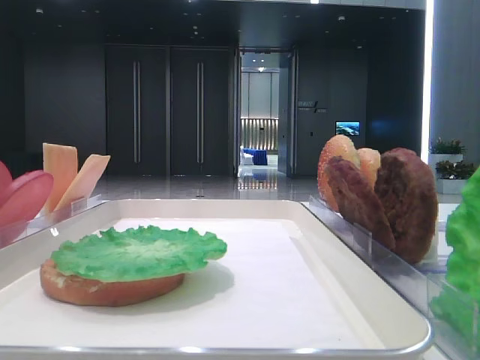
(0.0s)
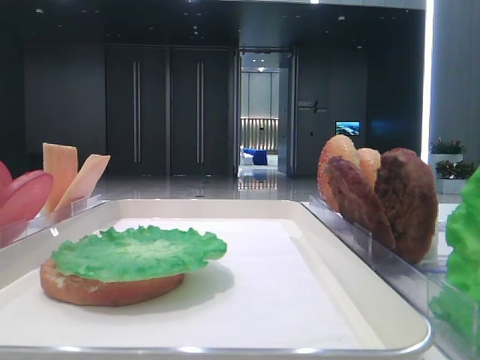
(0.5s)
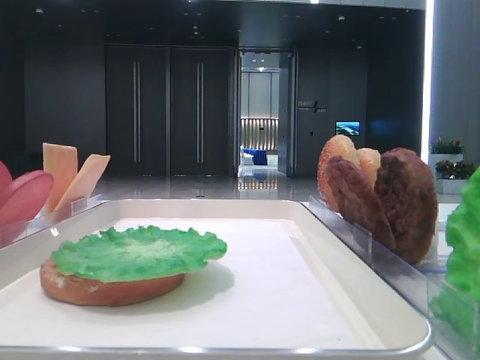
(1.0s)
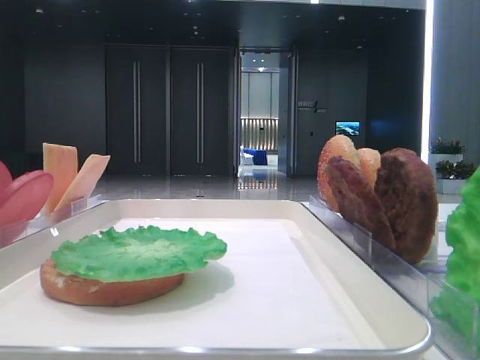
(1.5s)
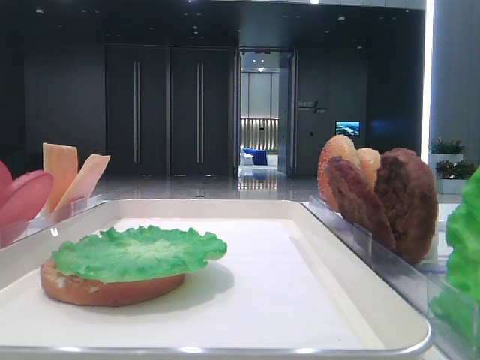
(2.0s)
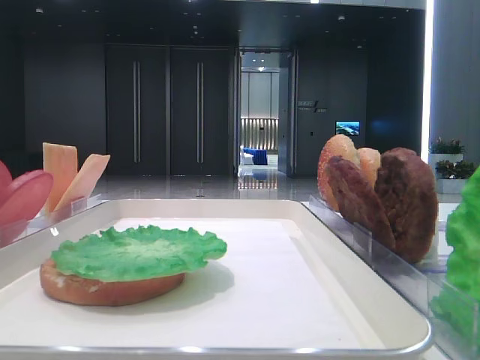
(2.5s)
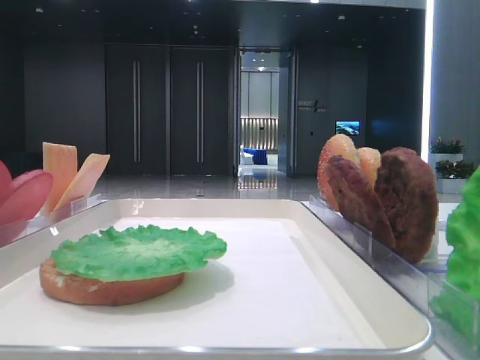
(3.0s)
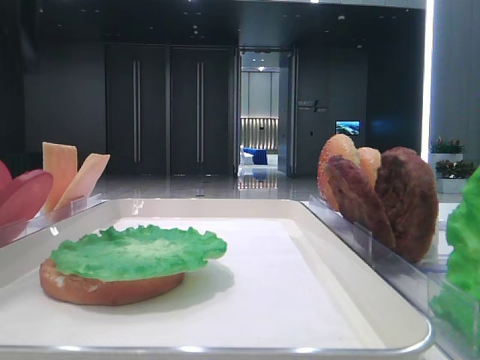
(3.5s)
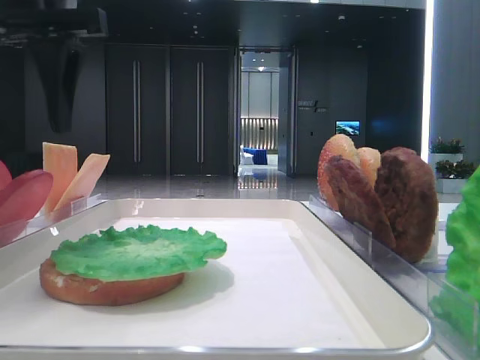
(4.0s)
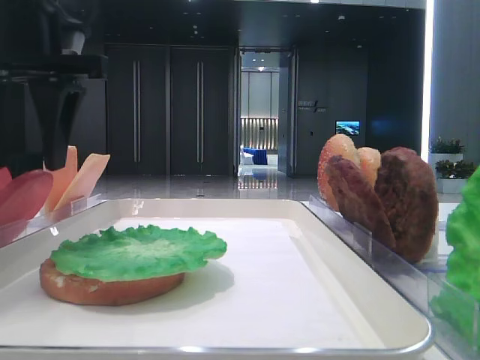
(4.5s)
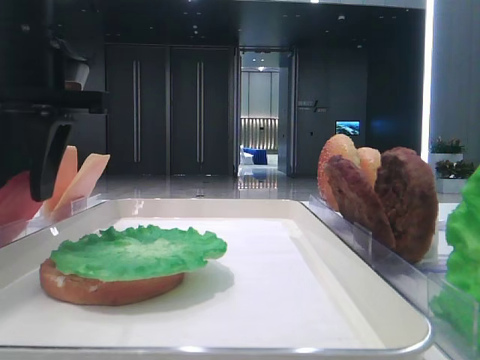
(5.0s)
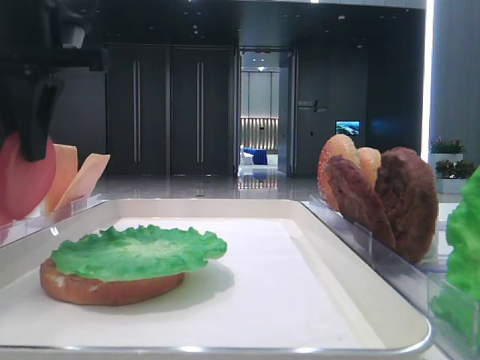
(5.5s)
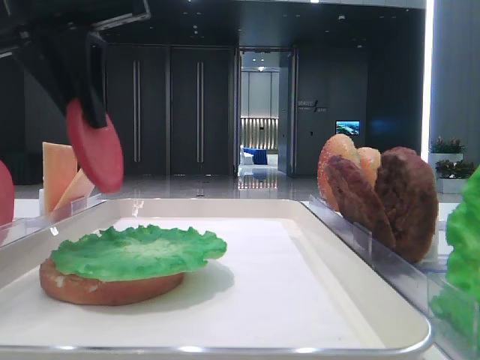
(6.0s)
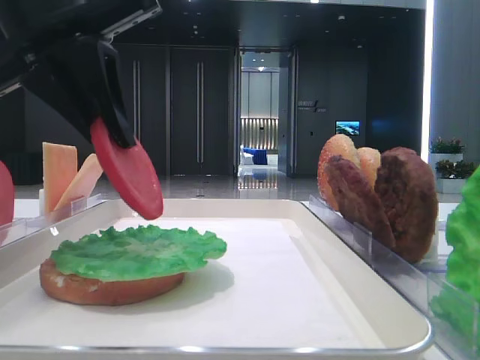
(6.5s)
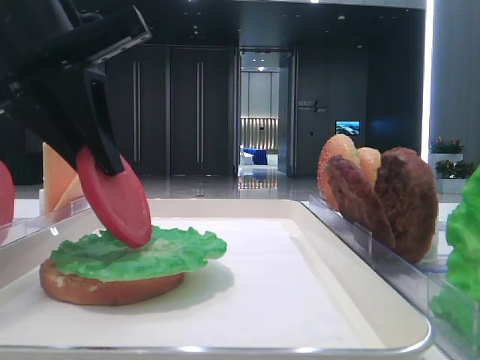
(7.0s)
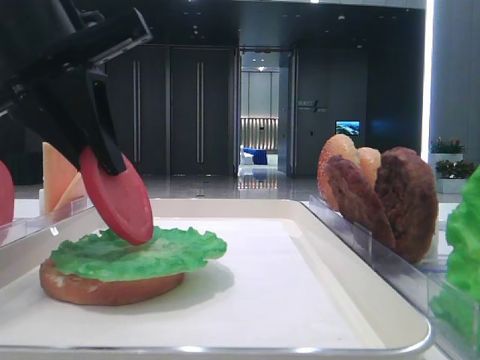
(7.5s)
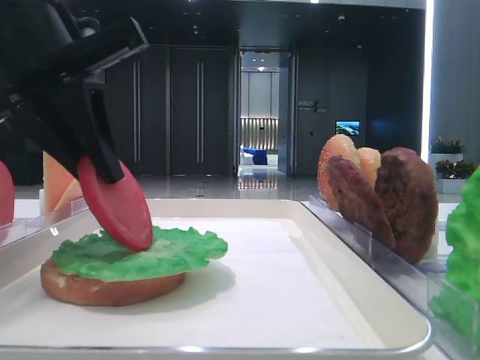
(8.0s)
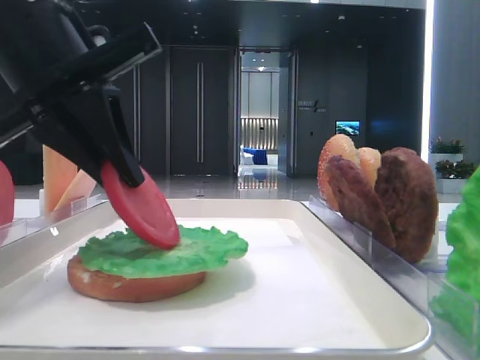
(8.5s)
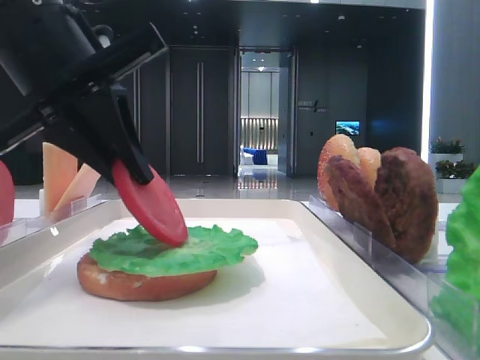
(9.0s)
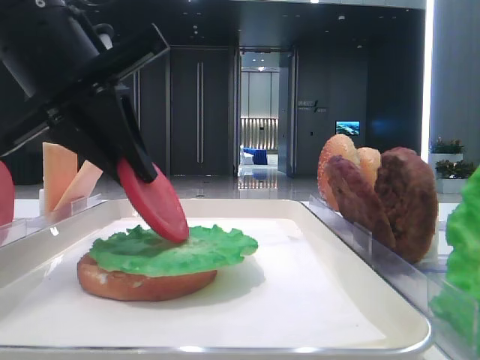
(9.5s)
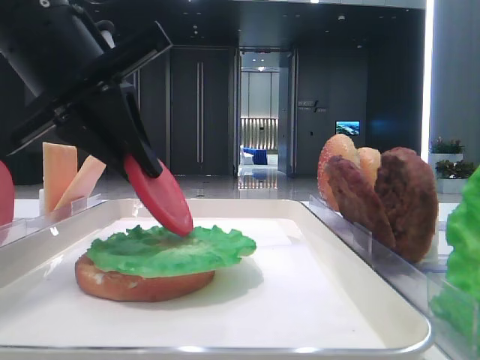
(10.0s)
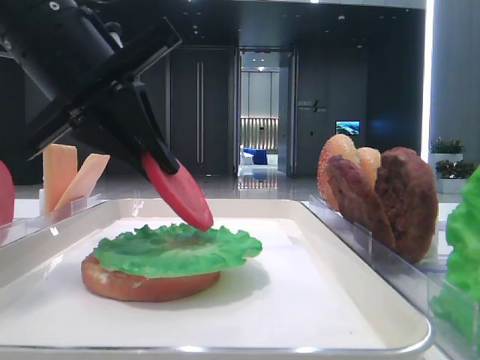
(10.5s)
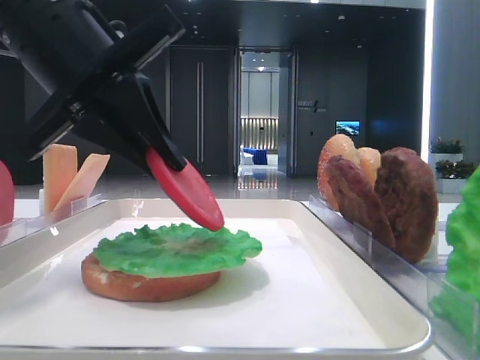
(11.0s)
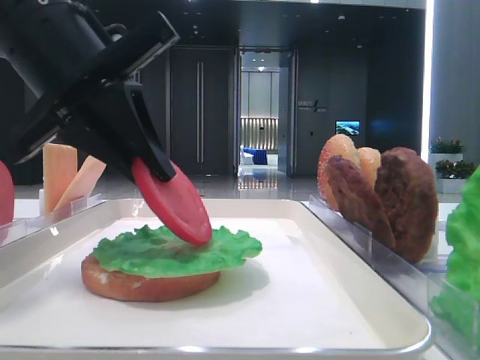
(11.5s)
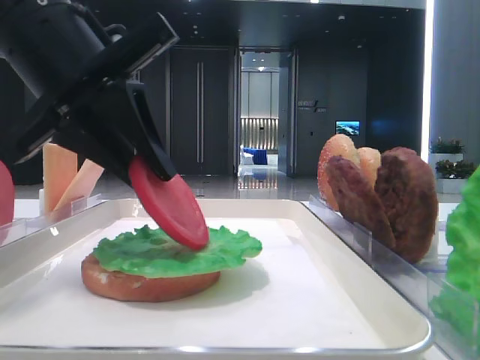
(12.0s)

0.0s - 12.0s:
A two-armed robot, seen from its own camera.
Step, 0.0s - 5.0s: Pick up the tomato slice with the left hand.
2.0s - 4.0s: The left gripper is displaced forward and to the right by approximately 35 cm.
4.0s - 6.0s: The left gripper closes.
6.0s - 8.0s: The left gripper is displaced downward by roughly 5 cm.
8.0s - 12.0s: The grippers move only a little.

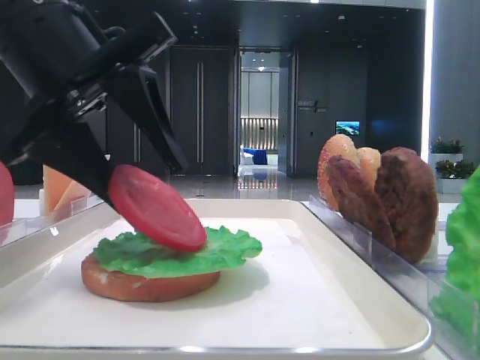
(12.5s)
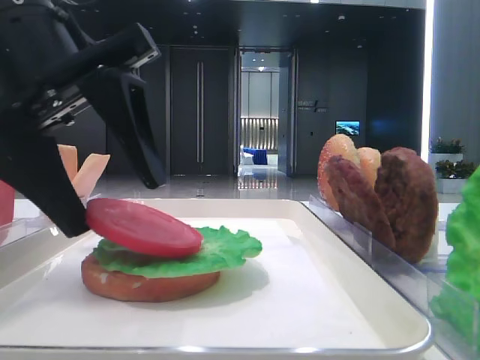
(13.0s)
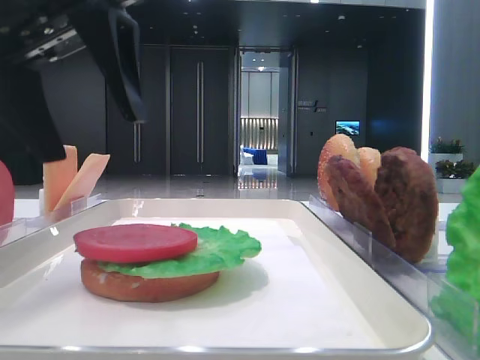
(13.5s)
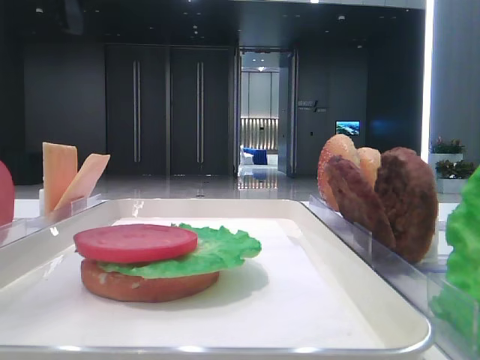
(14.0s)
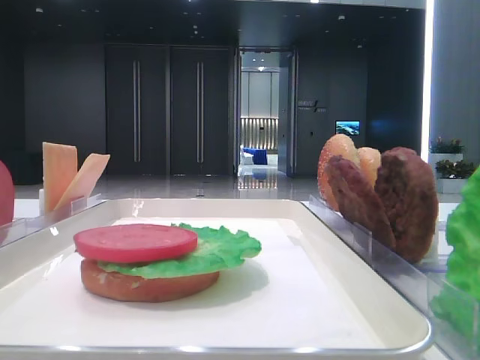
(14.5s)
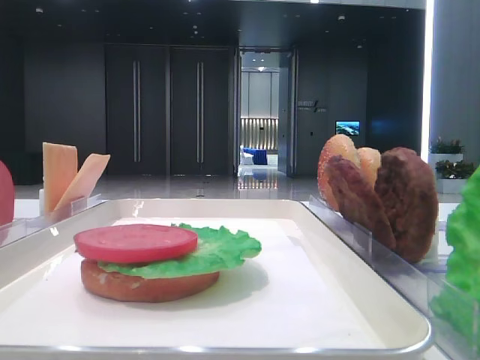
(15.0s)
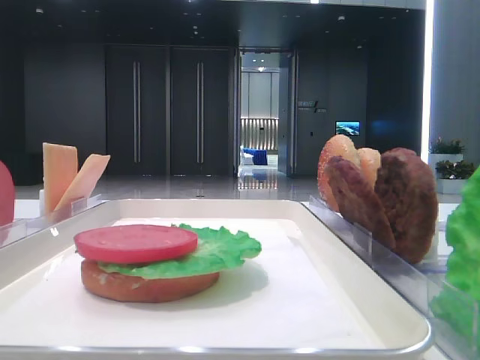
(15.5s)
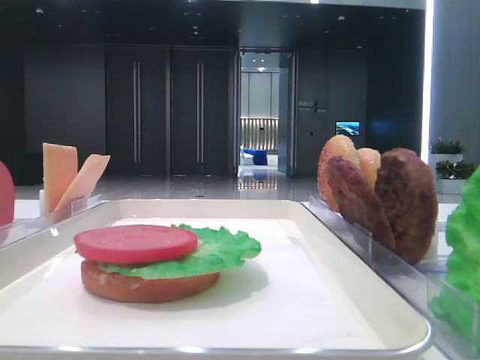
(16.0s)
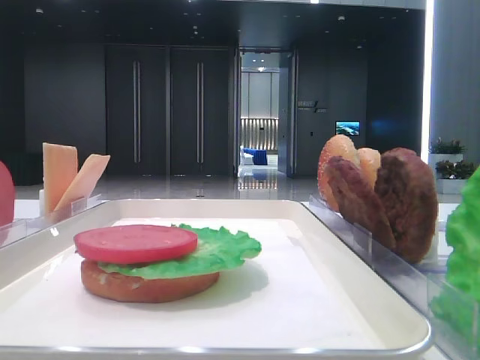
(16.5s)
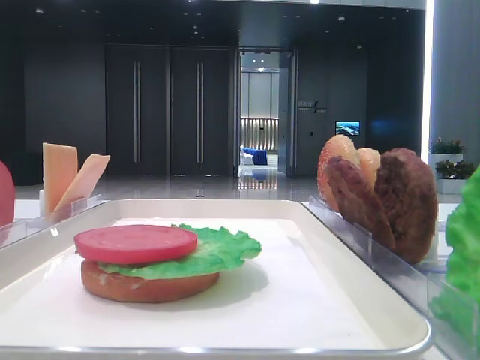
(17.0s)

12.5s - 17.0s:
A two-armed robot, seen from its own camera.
12.5s - 14.5s: The left gripper goes some 20 cm upward and to the left.

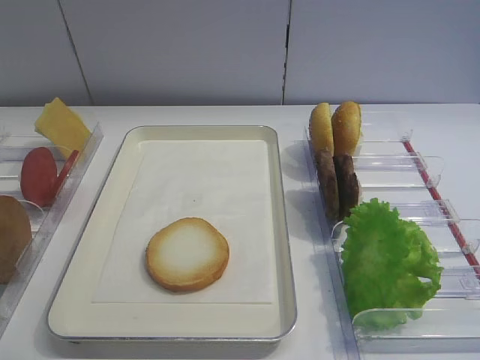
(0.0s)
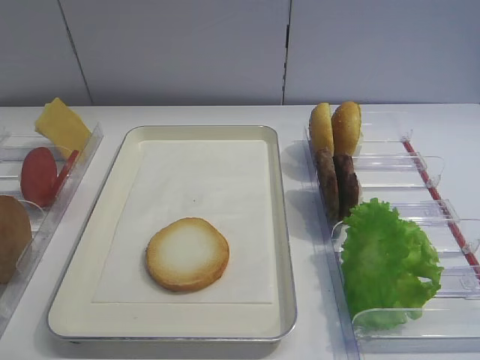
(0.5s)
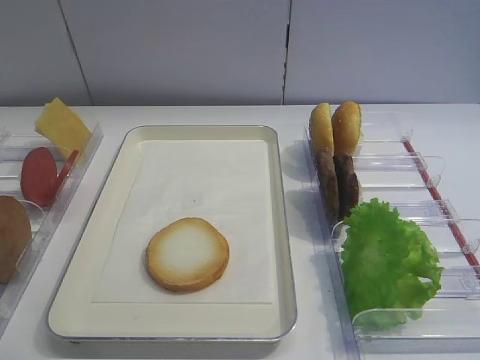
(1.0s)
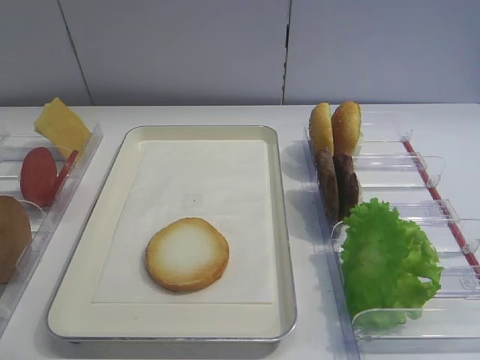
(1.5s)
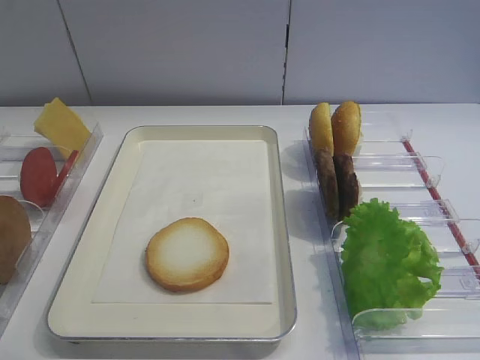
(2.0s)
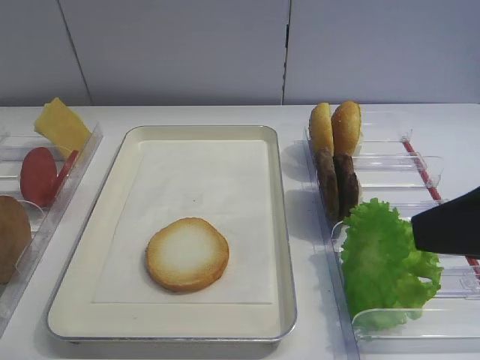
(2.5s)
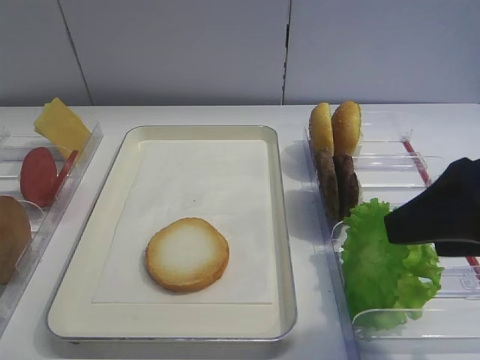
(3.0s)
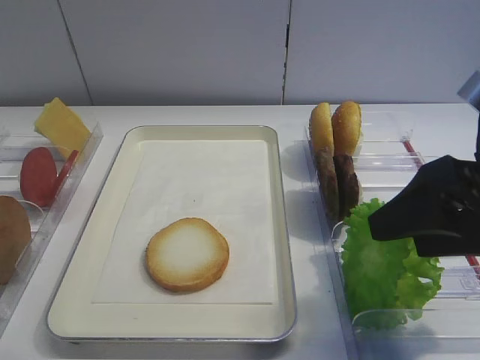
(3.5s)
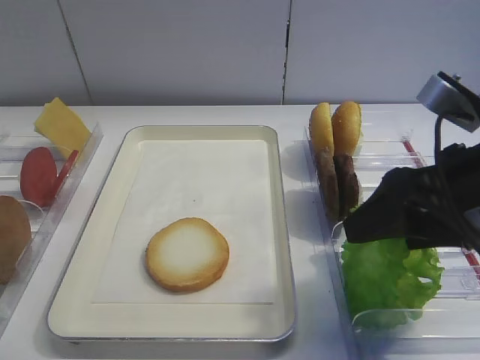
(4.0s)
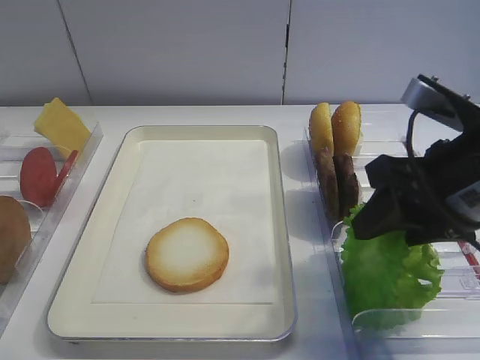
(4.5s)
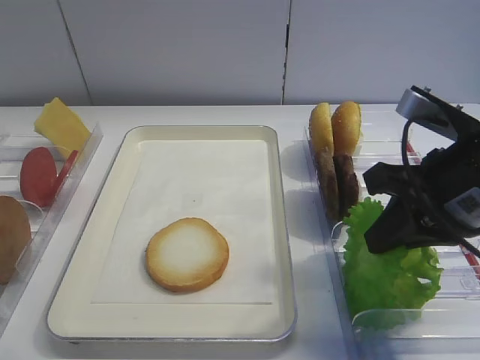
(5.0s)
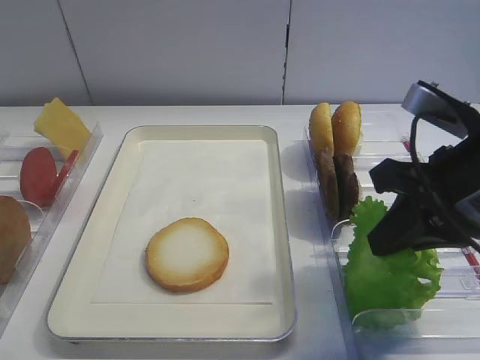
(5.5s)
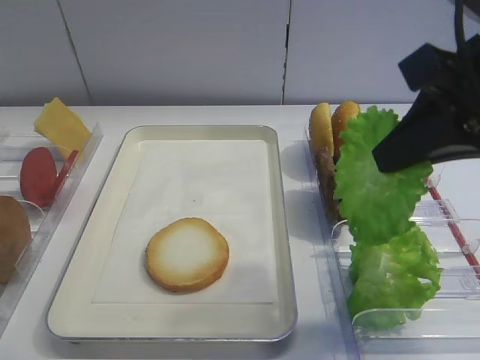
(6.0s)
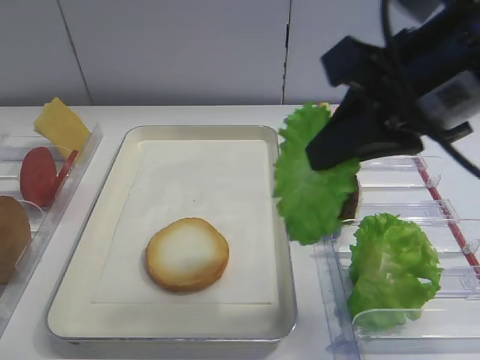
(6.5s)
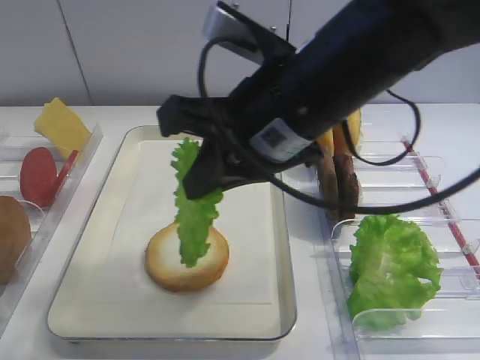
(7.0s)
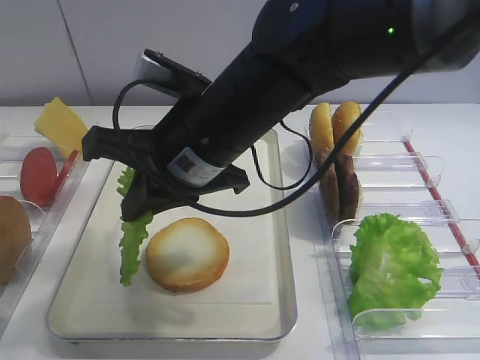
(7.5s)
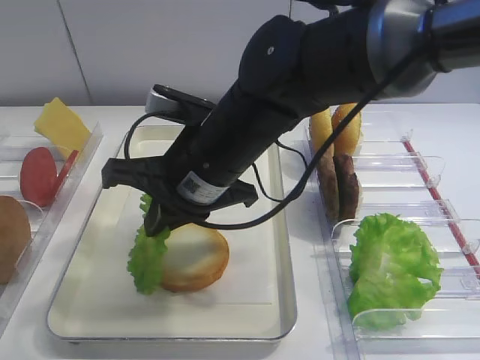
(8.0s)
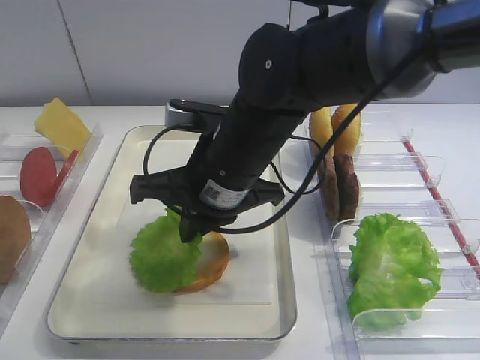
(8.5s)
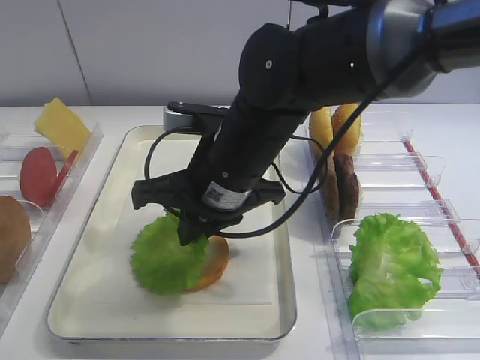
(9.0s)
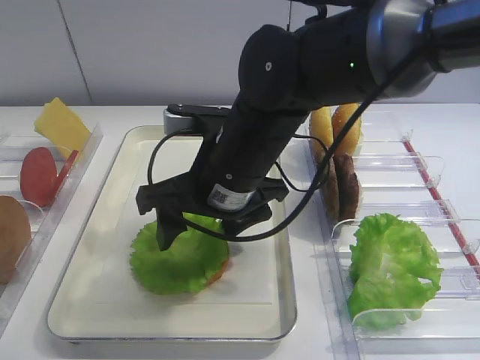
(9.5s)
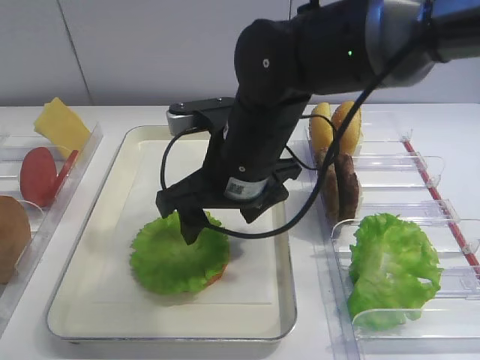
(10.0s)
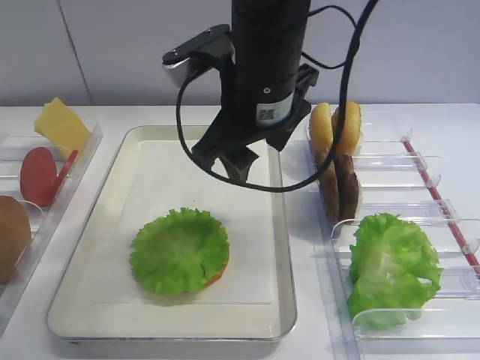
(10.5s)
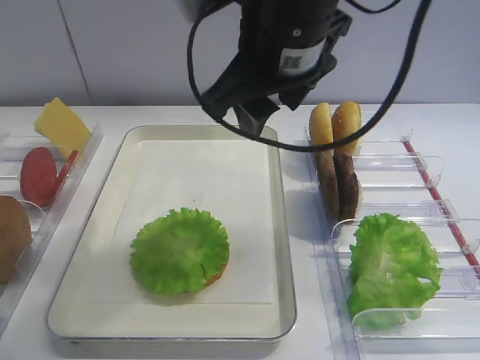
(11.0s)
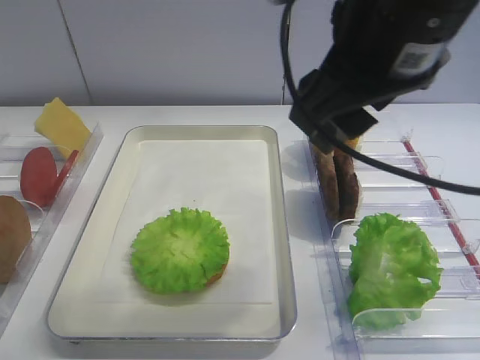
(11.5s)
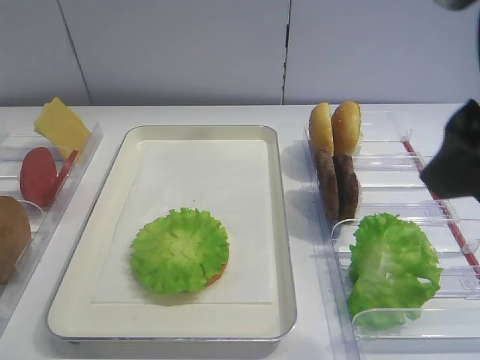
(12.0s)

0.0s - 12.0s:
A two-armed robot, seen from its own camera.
Step, 0.0s - 5.5s: Pick up the lettuce leaf with the right gripper.
Step, 6.0s - 10.0s: Place the lettuce leaf on the bread slice with the right gripper.
2.0s - 4.0s: The right gripper is displaced forward and downward by roughly 15 cm.
4.0s - 6.0s: The right gripper shifts roughly 10 cm upward, and closes its fingers.
6.0s - 8.0s: The right gripper travels to the left and downward by approximately 25 cm.
8.0s - 10.0s: The right gripper opens its fingers.
10.0s - 12.0s: The right gripper is displaced to the right, upward and backward by approximately 25 cm.
